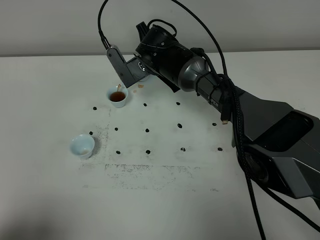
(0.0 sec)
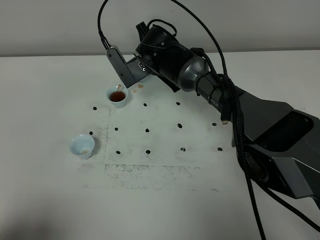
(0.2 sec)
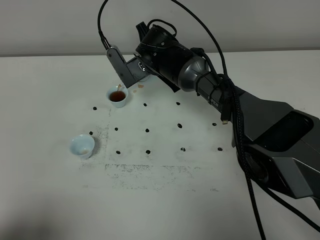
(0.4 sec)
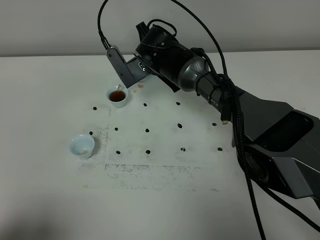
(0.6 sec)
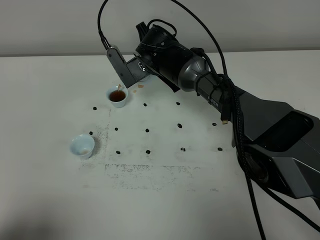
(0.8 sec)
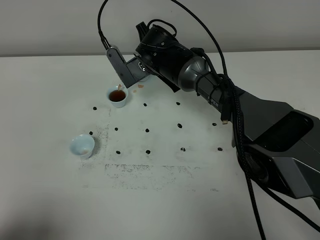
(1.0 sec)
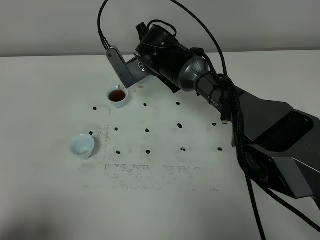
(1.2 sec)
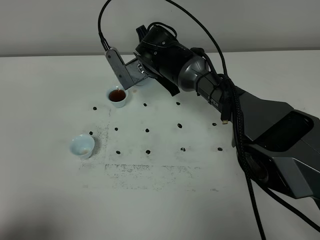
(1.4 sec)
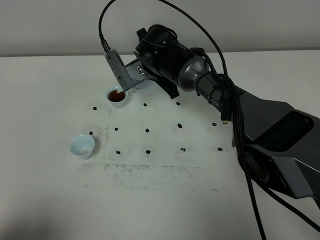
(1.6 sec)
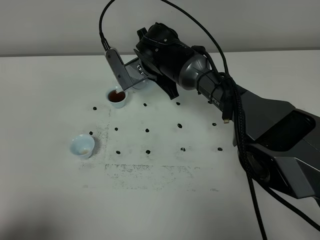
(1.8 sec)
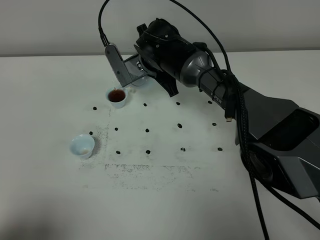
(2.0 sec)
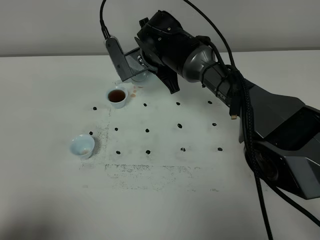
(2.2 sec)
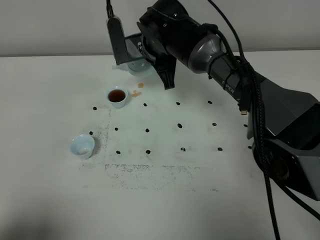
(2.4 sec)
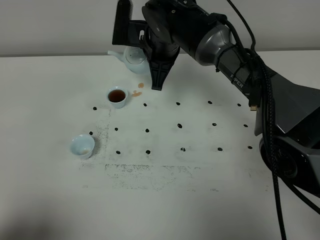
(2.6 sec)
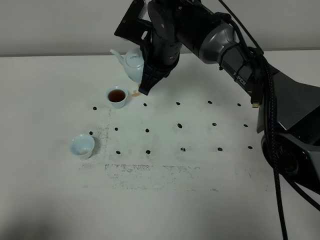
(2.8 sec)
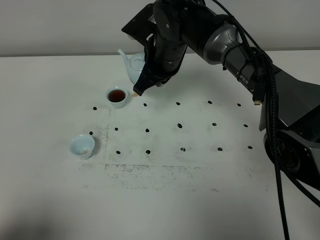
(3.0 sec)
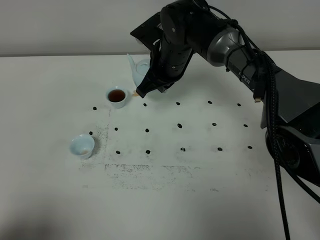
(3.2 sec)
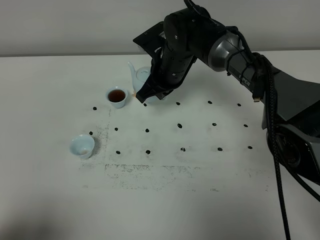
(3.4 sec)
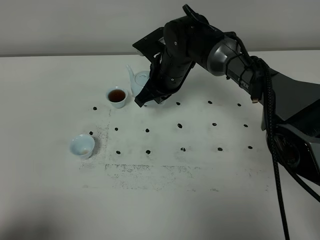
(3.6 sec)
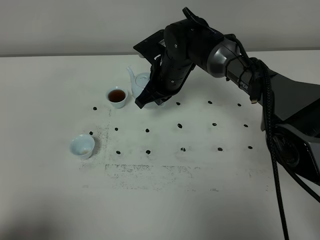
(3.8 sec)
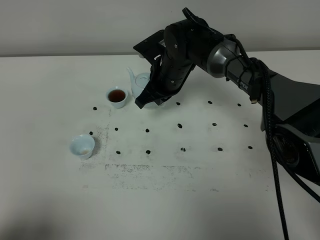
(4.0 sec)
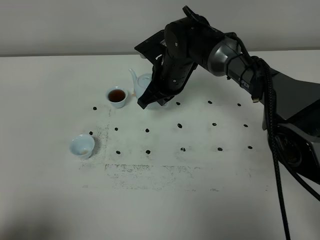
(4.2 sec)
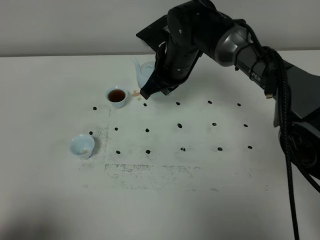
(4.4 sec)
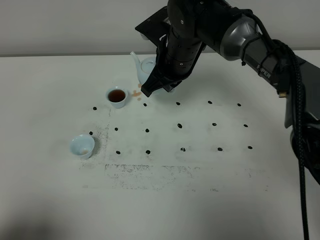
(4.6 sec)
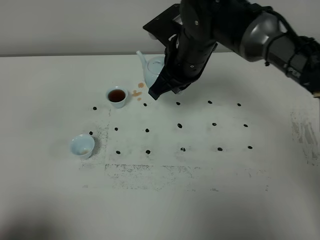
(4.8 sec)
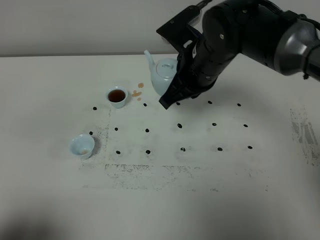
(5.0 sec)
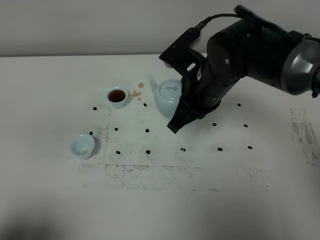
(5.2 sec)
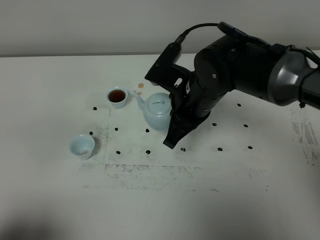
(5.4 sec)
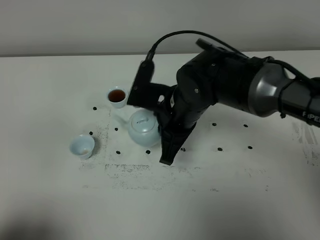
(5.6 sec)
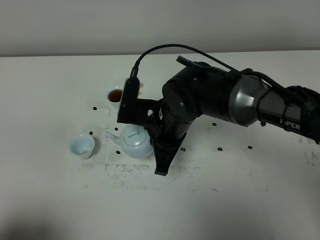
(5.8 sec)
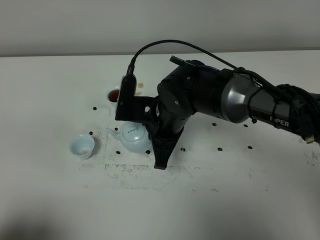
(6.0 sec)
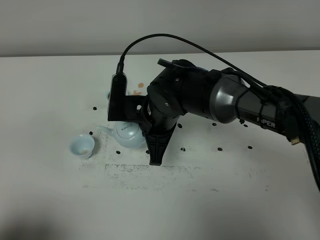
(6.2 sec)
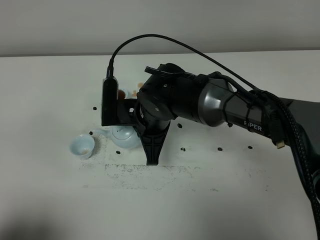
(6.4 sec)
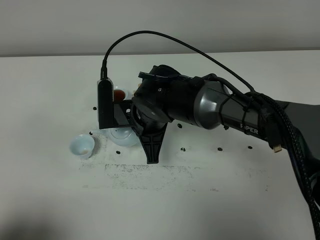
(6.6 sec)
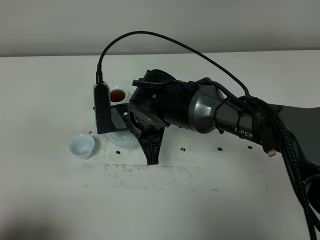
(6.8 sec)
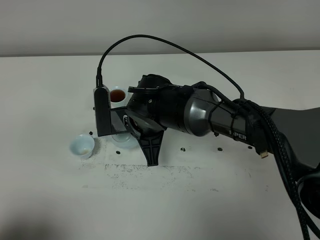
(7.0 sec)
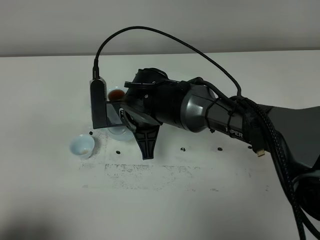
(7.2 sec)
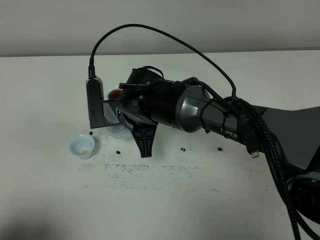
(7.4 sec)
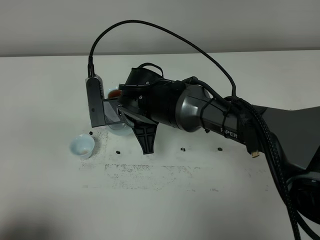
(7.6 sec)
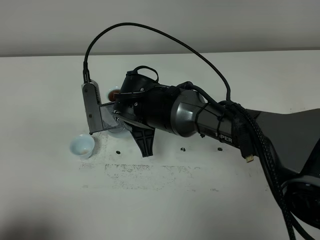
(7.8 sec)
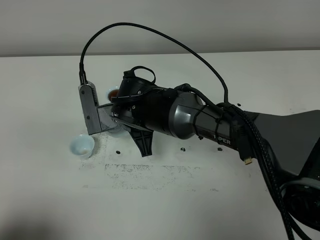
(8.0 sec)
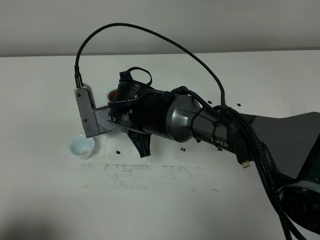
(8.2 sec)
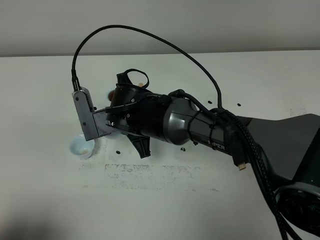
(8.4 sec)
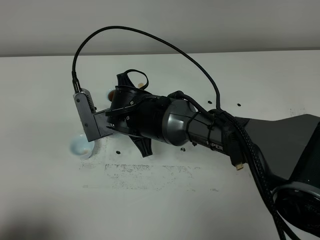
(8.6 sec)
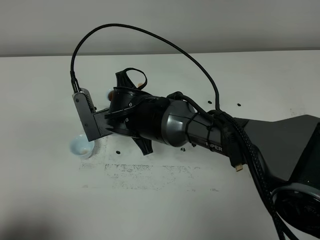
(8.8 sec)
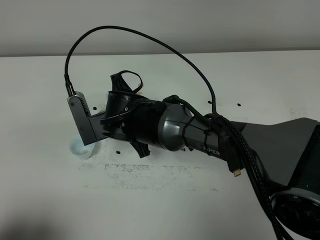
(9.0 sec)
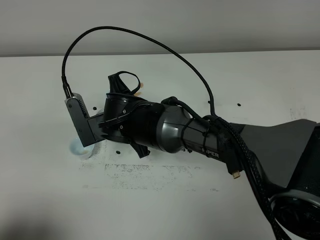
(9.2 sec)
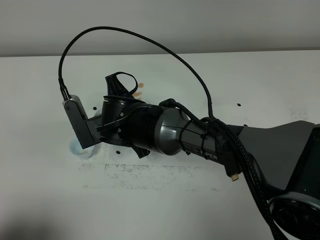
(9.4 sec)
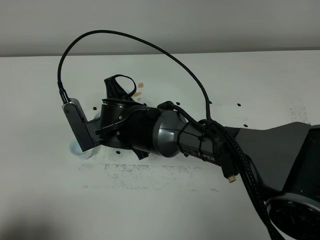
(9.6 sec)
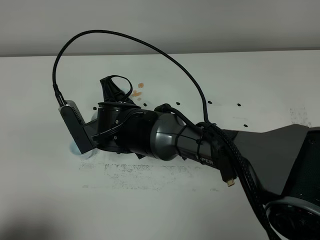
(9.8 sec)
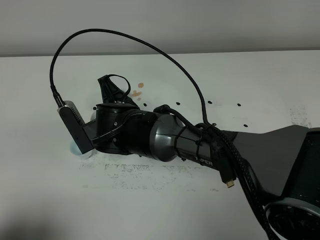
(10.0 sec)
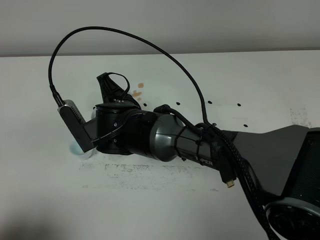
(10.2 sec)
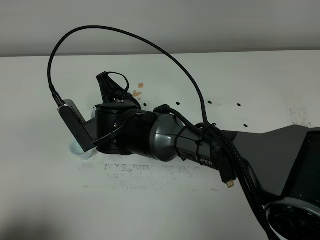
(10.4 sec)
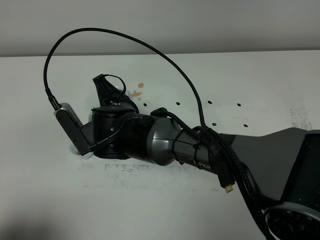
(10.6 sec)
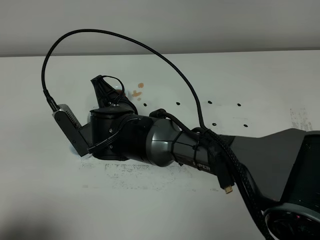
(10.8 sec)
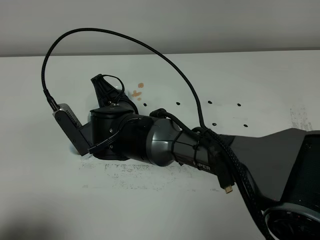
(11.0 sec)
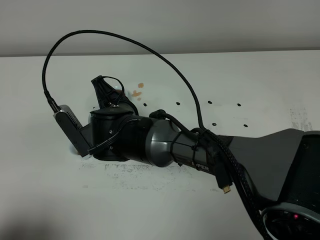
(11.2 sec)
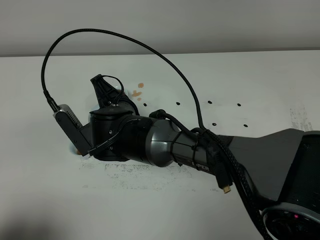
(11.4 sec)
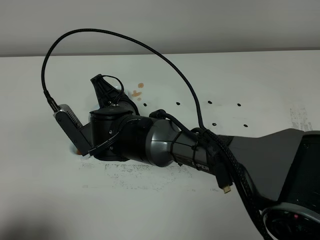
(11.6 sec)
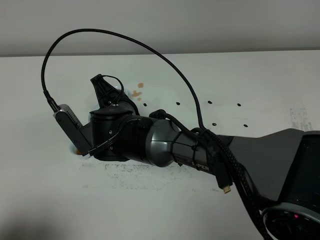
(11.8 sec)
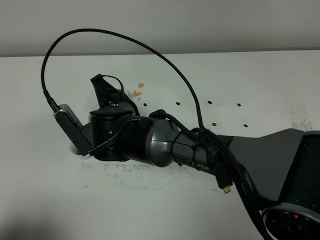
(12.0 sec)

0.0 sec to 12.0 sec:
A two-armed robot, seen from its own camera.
Task of the whole recording: grasp the blue porcelain teapot and pour the tea into the two blue porcelain teacups one by one, put the blue porcelain teapot back in its original place.
Step, 0.0 sec to 2.4 sec: Pour tea into the teacup with the right gripper.
0.0 sec to 1.6 sec: The grippers make only small movements.
1.6 sec to 3.0 sec: The right gripper shifts some 5 cm upward.
3.0 sec to 4.4 sec: The grippers move only a little.
4.4 sec to 6.0 sec: The right gripper travels backward by approximately 10 cm.
6.0 sec to 7.6 sec: The right gripper ends up approximately 5 cm from where it was.
9.0 sec to 10.4 sec: The grippers move only a little.
10.4 sec to 12.0 sec: The two grippers keep their place.

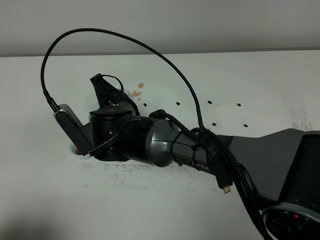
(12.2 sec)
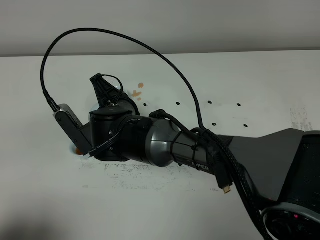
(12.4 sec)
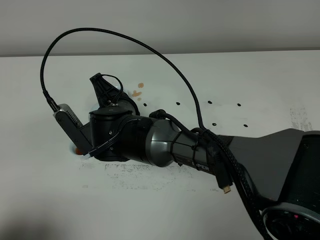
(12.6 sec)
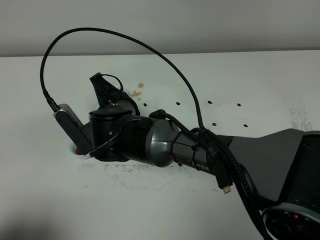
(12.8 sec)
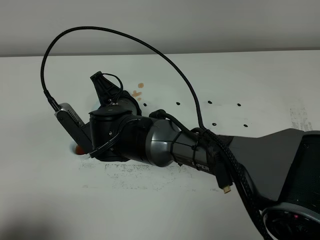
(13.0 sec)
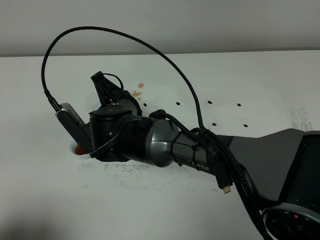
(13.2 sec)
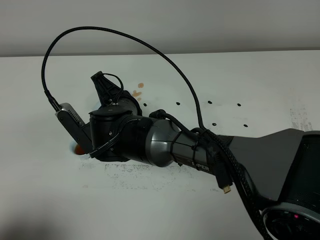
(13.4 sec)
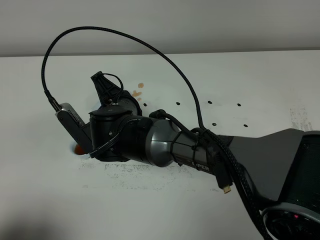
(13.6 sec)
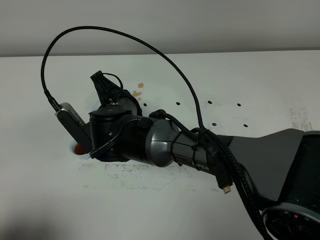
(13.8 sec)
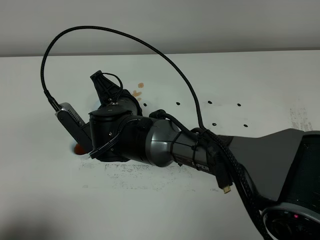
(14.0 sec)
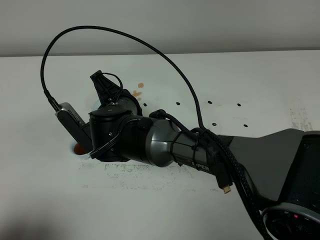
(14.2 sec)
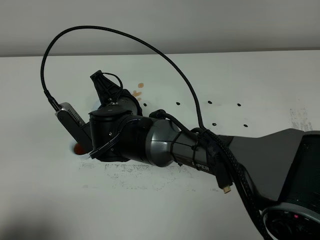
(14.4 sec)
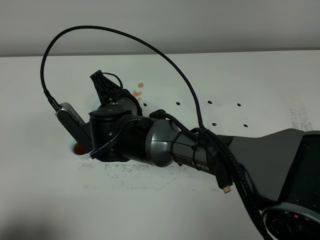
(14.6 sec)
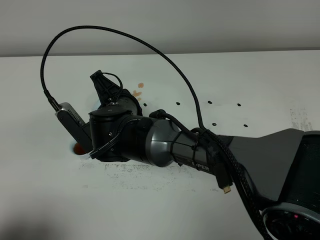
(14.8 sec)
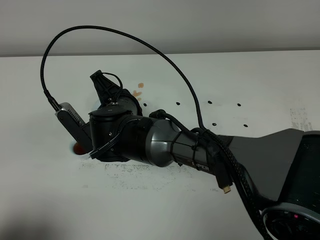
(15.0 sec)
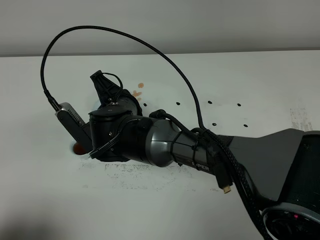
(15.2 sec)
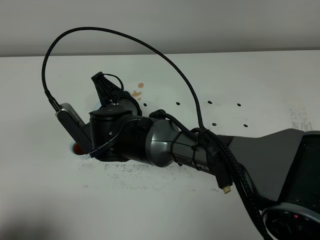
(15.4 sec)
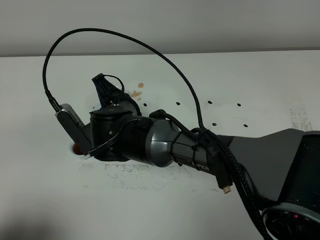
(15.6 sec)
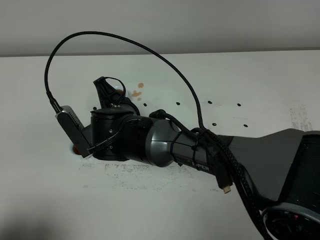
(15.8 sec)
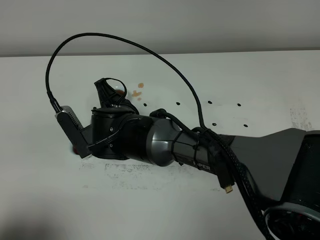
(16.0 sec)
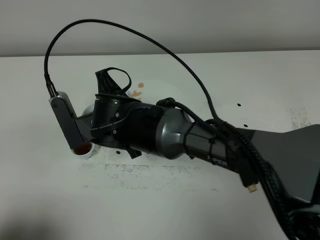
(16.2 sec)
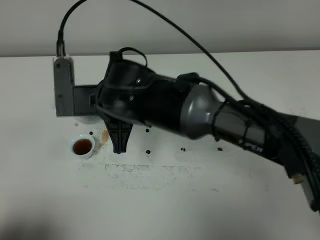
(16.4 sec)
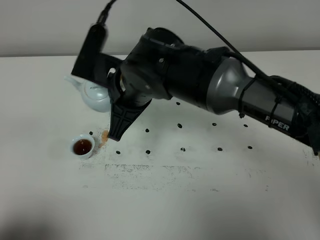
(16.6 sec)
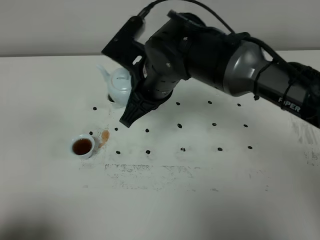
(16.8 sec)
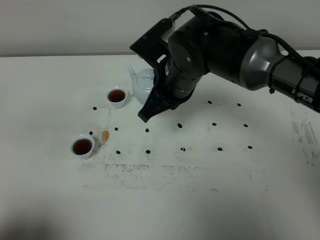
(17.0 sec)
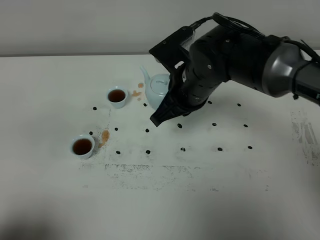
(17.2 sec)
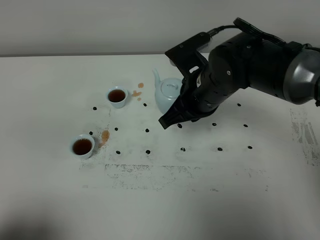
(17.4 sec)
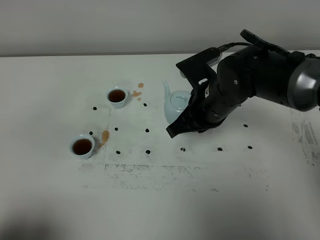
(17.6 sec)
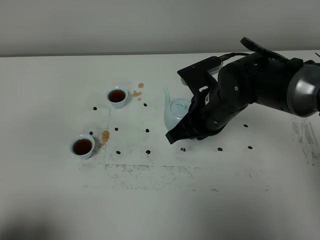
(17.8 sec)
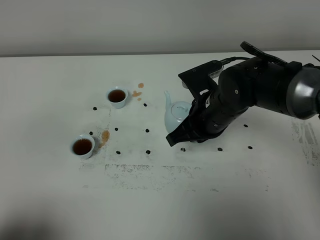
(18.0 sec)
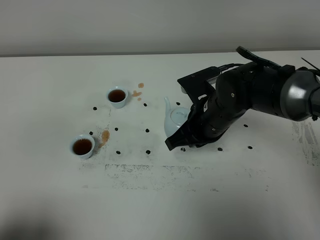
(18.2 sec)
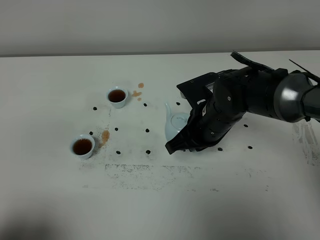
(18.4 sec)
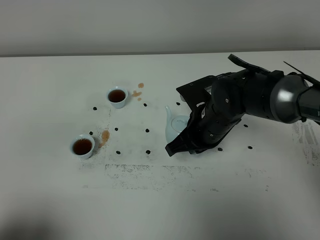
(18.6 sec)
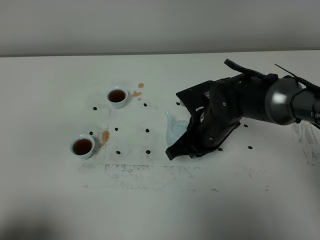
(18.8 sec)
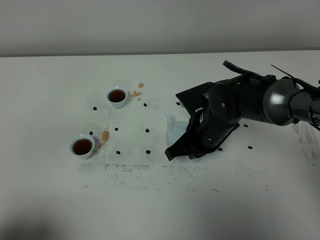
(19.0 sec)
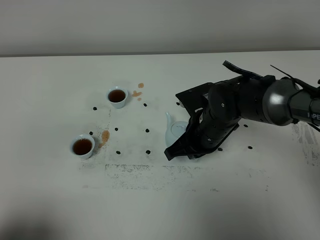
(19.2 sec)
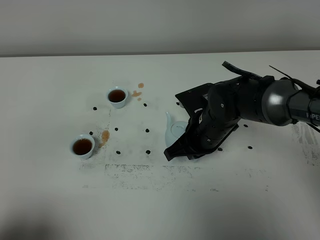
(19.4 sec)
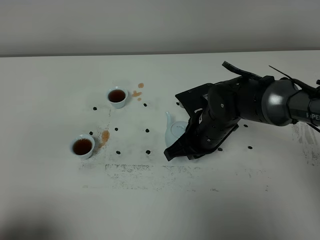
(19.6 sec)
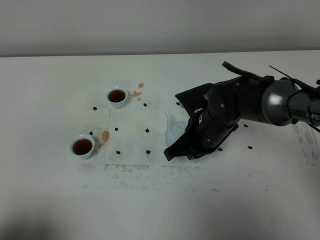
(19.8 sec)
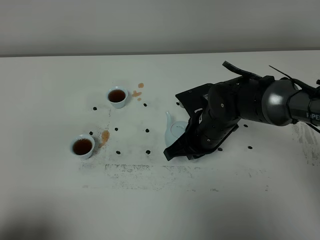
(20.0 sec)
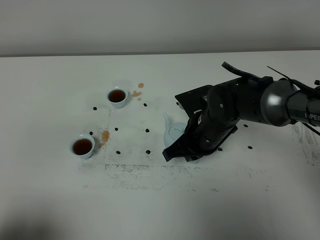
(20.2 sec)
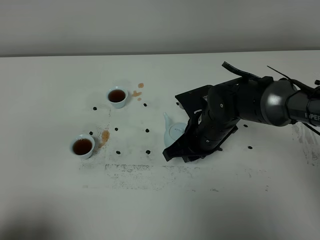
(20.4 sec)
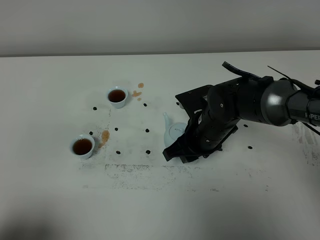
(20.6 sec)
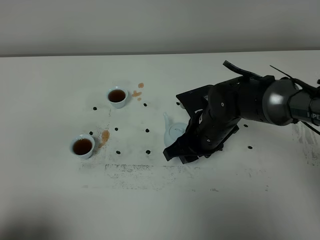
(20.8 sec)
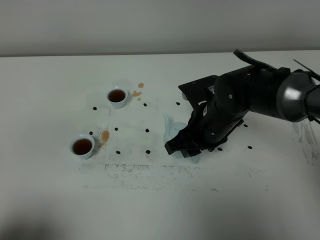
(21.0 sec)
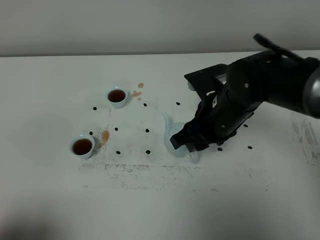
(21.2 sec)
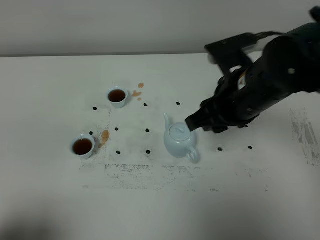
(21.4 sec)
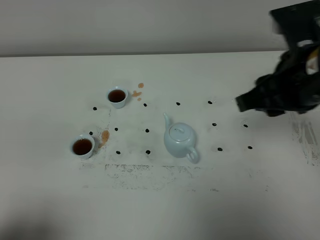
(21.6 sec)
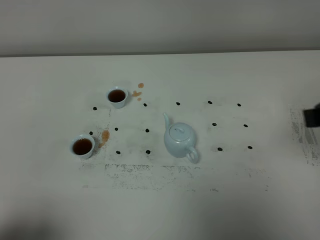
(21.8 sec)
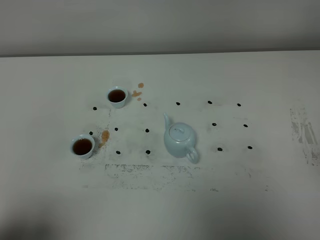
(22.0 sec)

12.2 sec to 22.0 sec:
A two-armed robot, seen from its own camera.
Task of the whole recording: grasp the blue porcelain teapot and pour the tea into the two blue porcelain teacups one by one, put the blue porcelain teapot back in its original place.
Step, 12.2 sec to 16.2 sec: Pour tea into the teacup with the right gripper.
12.2 sec to 15.0 sec: Both grippers stay about where they are.
15.0 sec to 16.4 sec: The right gripper goes about 5 cm upward.
16.4 sec to 17.8 sec: The right gripper goes some 15 cm to the right.
17.8 sec to 19.2 sec: The right gripper goes approximately 5 cm downward.
19.2 sec to 20.6 sec: The right gripper opens its fingers.
20.6 sec to 22.0 sec: The right gripper travels backward, upward and to the right by approximately 35 cm.
